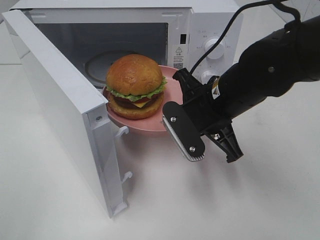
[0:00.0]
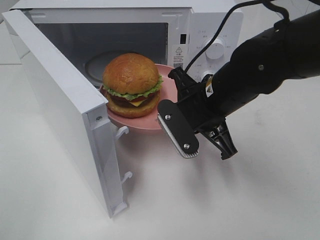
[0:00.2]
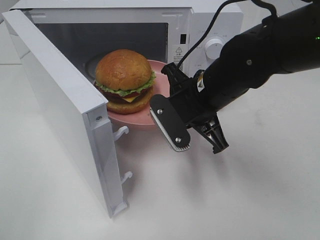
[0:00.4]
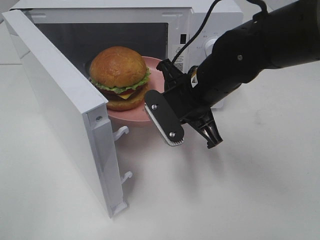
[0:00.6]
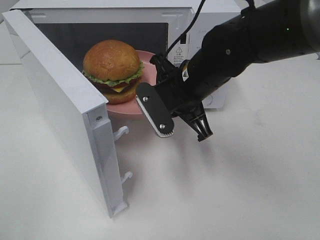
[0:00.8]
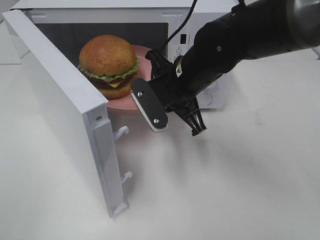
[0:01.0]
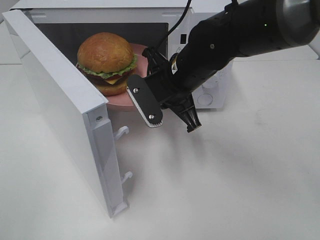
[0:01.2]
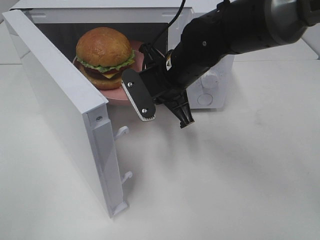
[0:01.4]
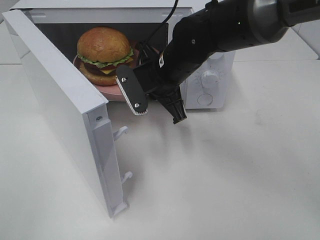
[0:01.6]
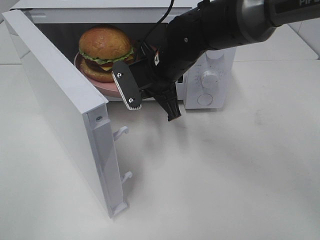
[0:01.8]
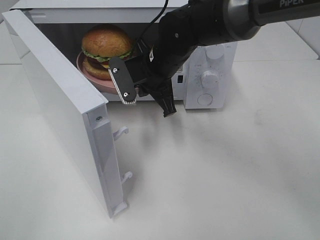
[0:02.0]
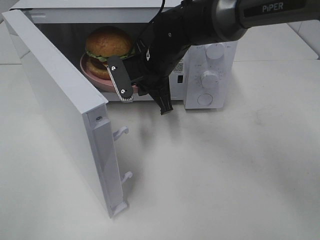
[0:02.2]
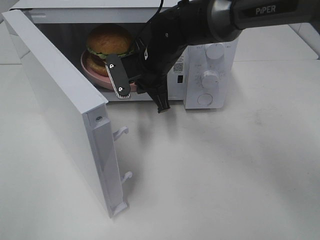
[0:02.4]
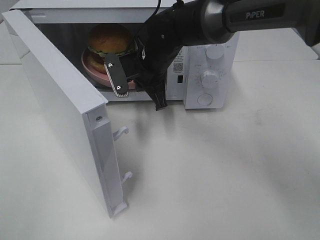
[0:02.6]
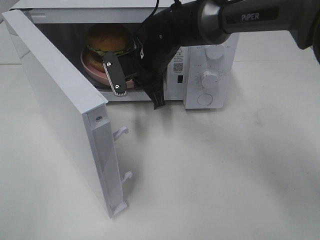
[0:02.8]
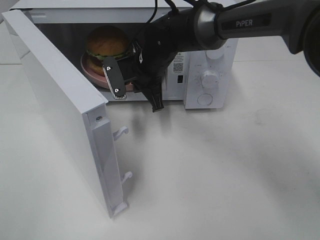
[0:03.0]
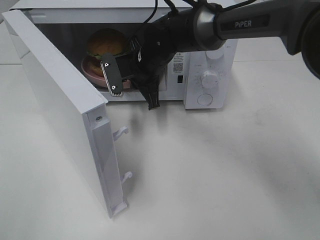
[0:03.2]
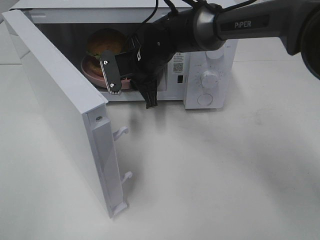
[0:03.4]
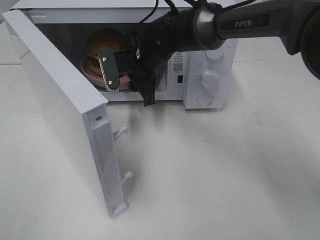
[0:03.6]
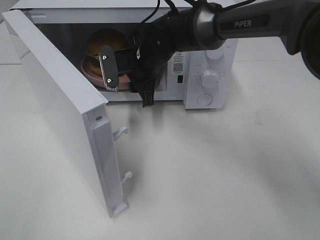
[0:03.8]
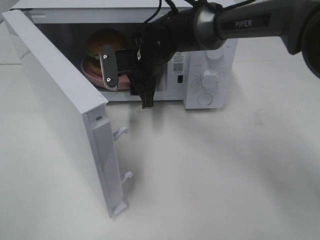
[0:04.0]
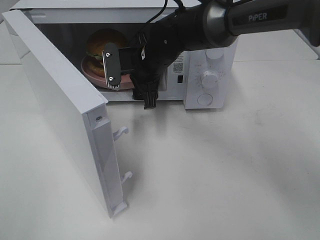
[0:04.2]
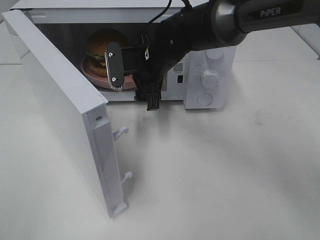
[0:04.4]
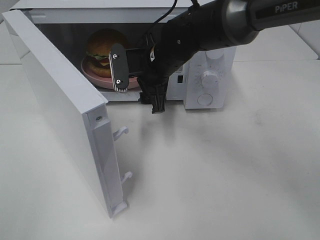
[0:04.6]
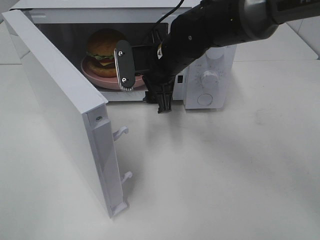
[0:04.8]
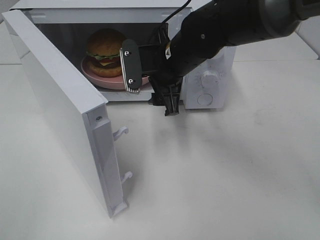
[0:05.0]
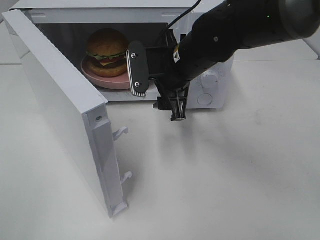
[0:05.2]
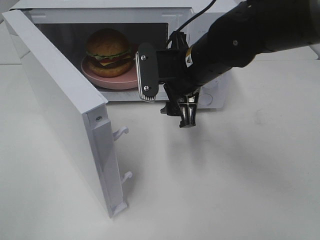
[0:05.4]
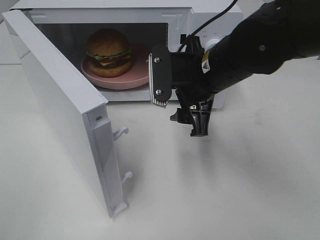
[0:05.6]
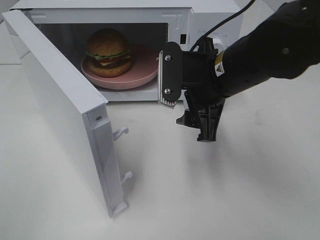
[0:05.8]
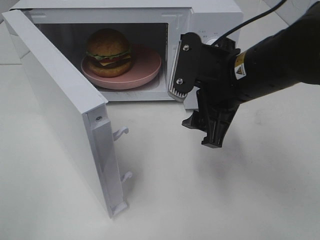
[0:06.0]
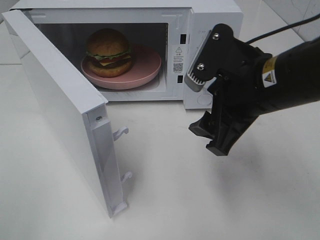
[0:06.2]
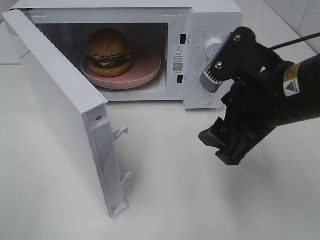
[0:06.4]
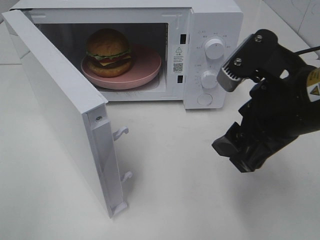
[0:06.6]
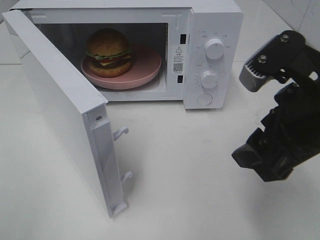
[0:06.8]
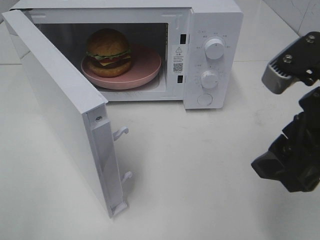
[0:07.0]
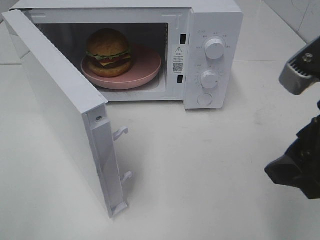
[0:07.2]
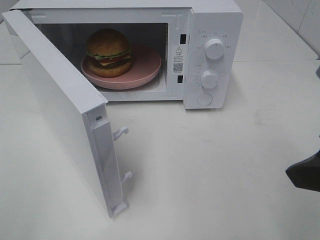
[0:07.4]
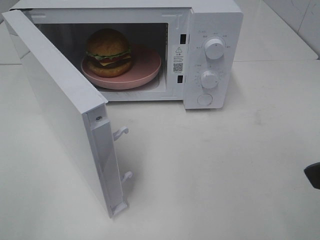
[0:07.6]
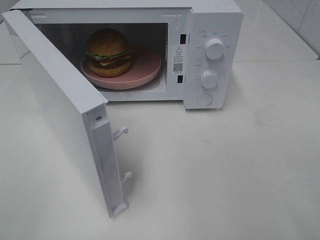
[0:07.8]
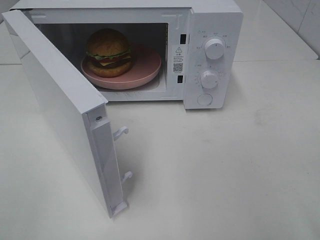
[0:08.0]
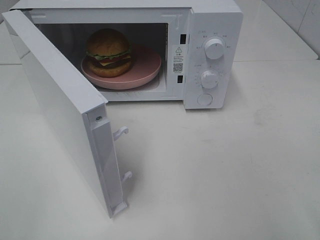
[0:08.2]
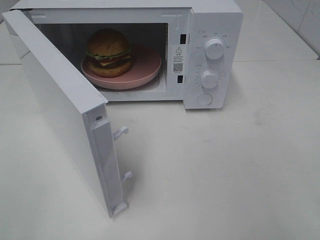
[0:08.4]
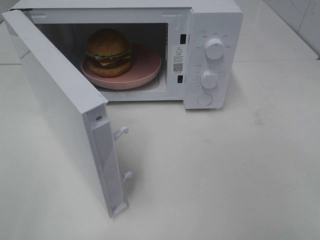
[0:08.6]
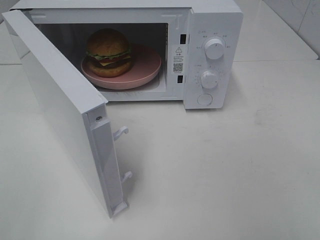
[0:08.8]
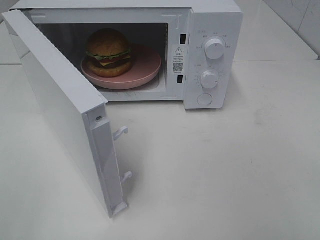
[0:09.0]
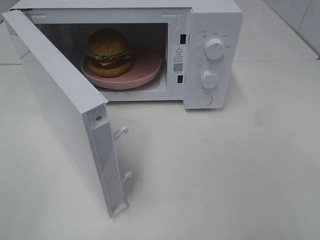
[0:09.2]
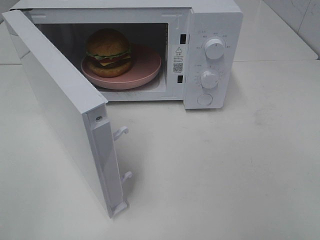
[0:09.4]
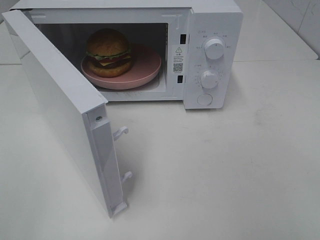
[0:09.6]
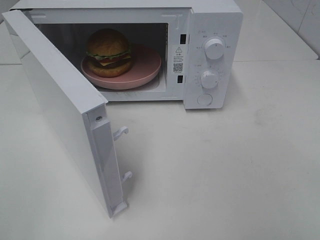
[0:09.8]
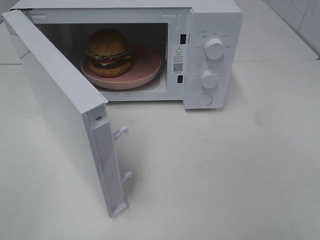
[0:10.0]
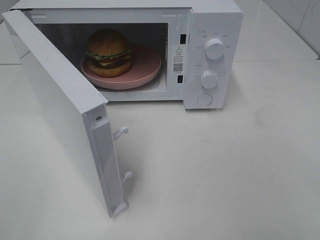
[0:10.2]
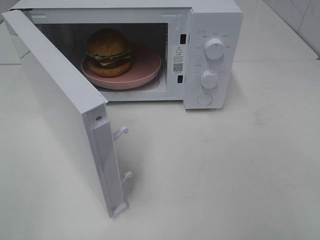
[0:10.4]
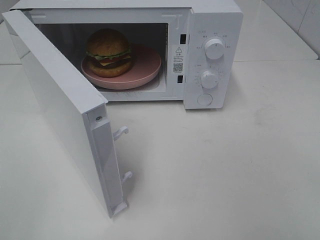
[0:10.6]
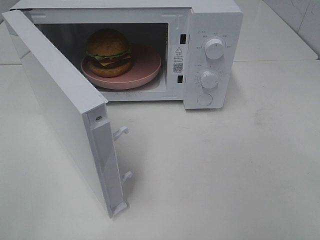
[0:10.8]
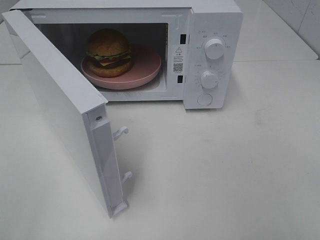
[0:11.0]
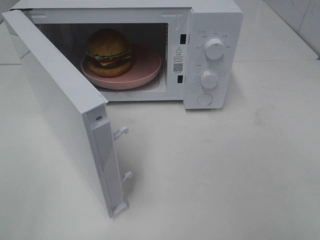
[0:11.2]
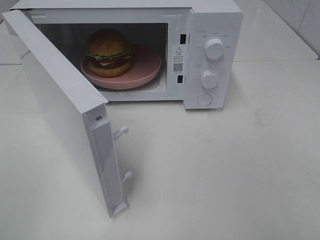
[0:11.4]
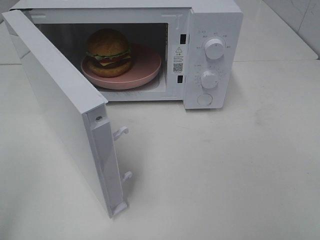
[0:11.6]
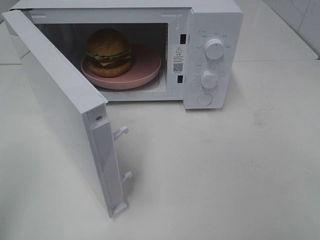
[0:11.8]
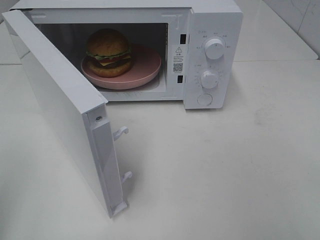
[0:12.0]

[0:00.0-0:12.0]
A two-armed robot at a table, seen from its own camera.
Task of the whole recording: Heat the burger.
Step, 0:00.0 to 0:03.6: Right hand: place the plate in the microwave.
0:00.0 to 0:01.6: The right gripper travels forward and to the left by roughly 10 cm.
0:01.6 to 0:03.0: The right gripper shifts approximately 5 cm forward.
0:03.0 to 0:04.4: The right gripper opens.
0:04.4 to 0:06.0: The right gripper moves backward, to the right and upward, some 20 cm.
0:06.0 to 0:07.6: The right gripper is displaced backward, to the right and upward by approximately 20 cm.
0:09.0 to 0:10.4: Neither gripper changes place.

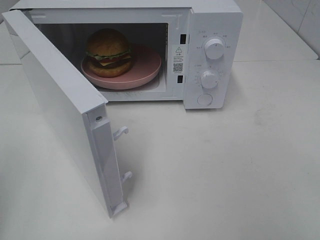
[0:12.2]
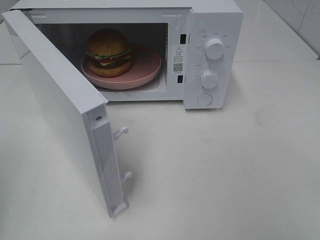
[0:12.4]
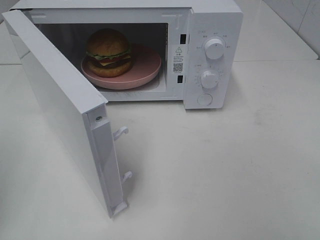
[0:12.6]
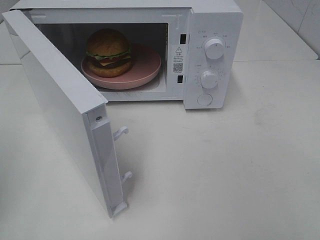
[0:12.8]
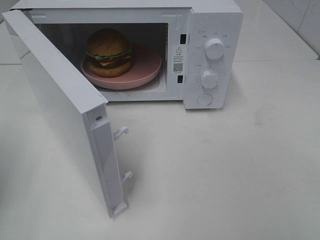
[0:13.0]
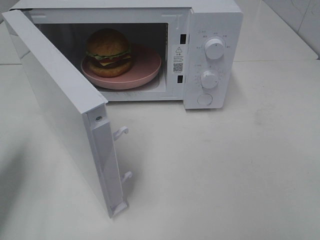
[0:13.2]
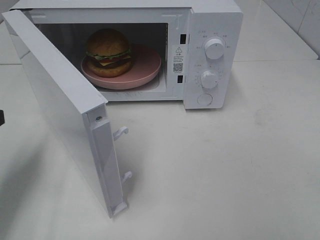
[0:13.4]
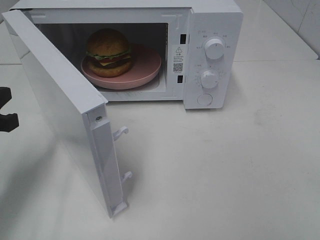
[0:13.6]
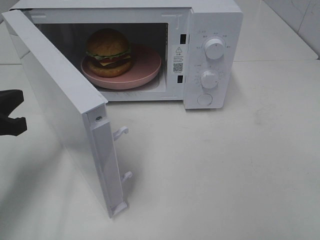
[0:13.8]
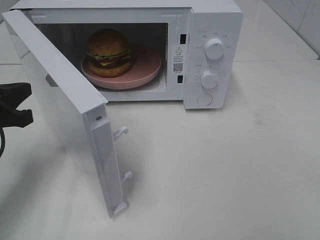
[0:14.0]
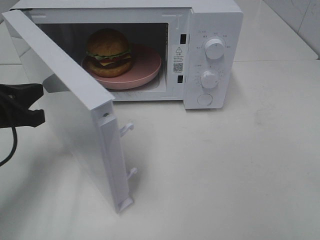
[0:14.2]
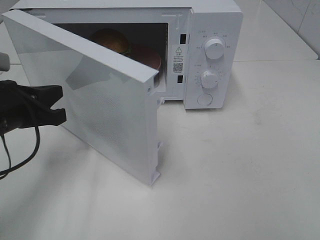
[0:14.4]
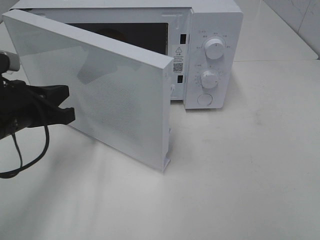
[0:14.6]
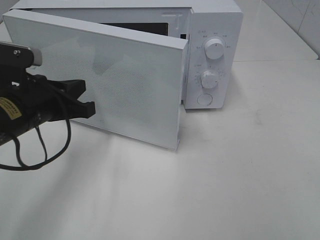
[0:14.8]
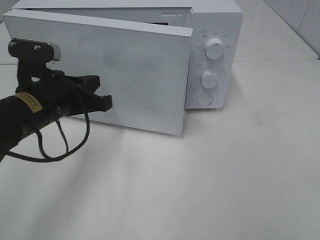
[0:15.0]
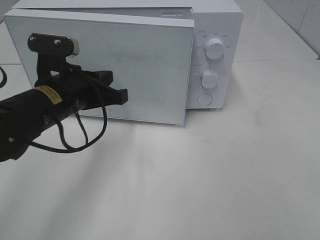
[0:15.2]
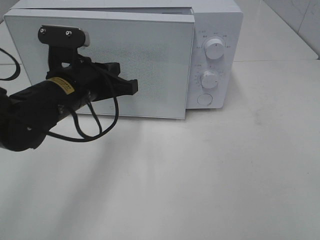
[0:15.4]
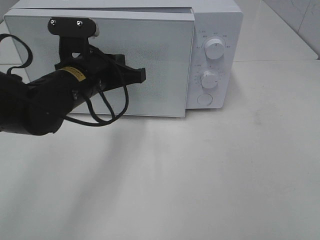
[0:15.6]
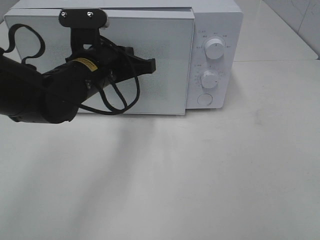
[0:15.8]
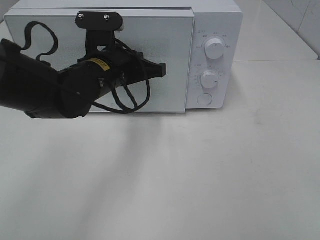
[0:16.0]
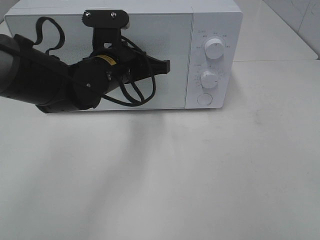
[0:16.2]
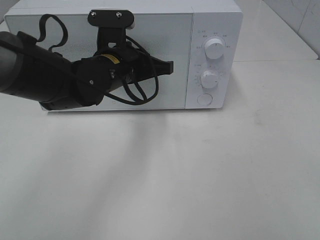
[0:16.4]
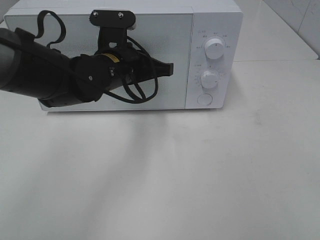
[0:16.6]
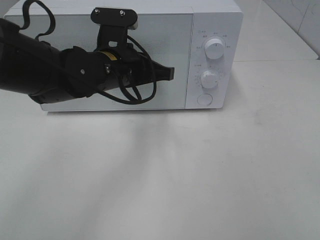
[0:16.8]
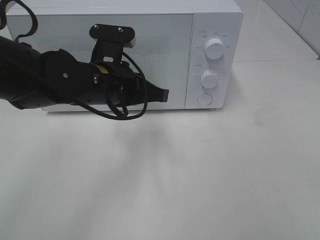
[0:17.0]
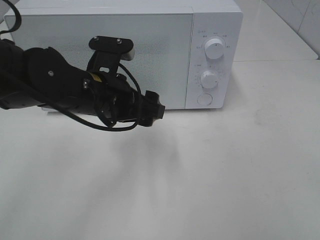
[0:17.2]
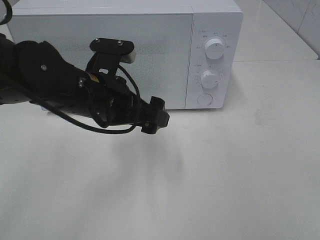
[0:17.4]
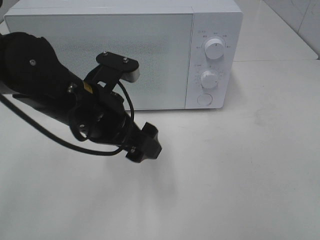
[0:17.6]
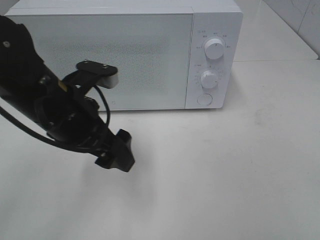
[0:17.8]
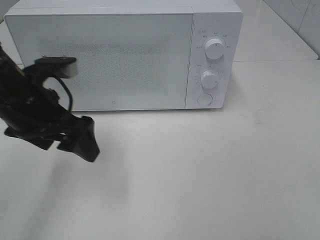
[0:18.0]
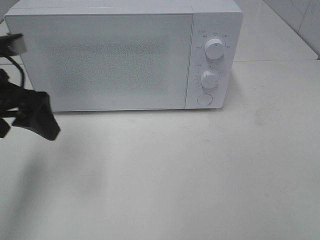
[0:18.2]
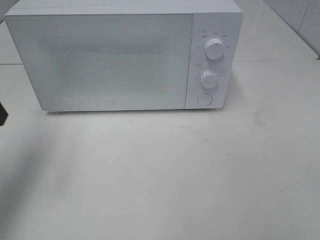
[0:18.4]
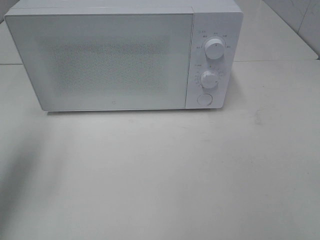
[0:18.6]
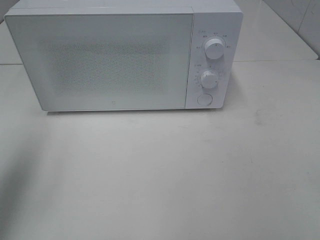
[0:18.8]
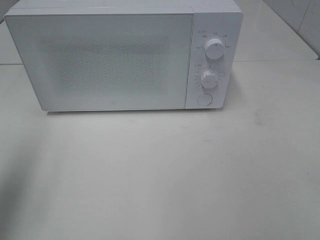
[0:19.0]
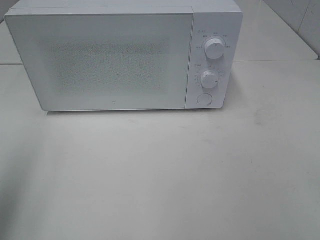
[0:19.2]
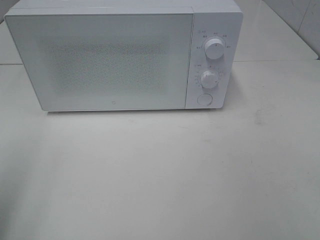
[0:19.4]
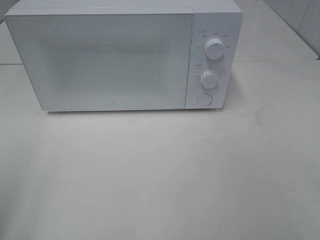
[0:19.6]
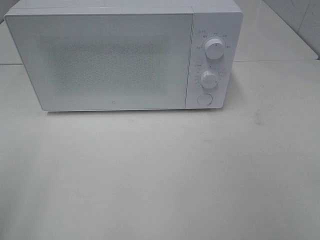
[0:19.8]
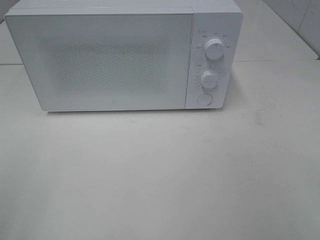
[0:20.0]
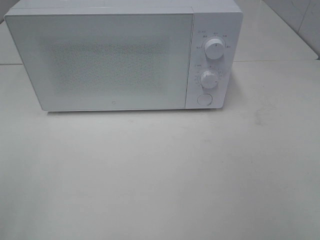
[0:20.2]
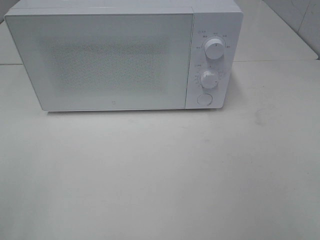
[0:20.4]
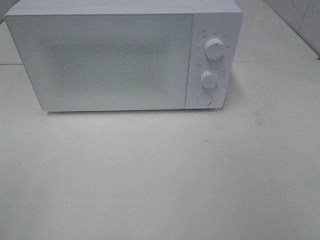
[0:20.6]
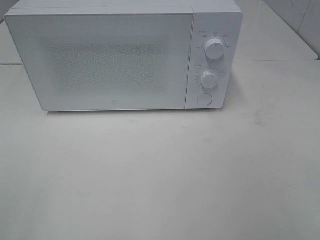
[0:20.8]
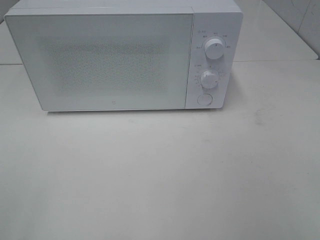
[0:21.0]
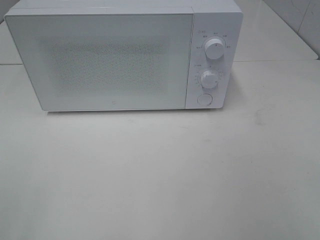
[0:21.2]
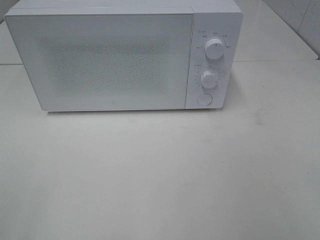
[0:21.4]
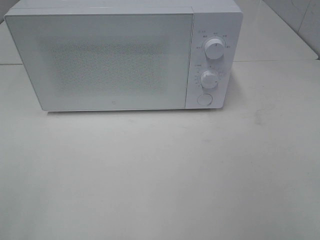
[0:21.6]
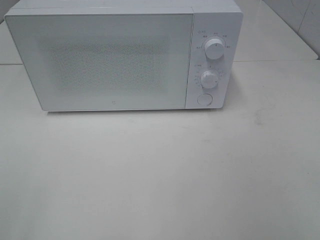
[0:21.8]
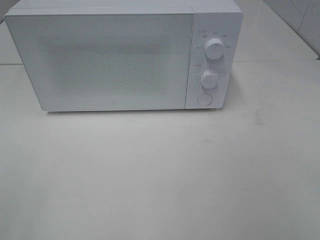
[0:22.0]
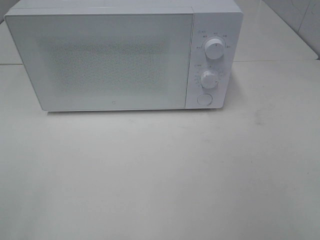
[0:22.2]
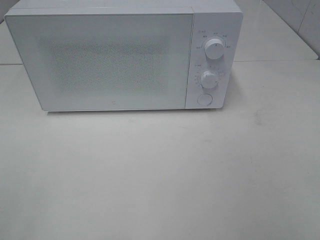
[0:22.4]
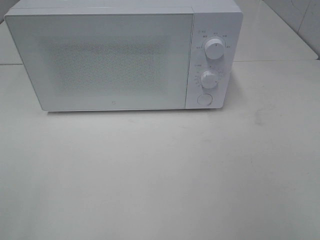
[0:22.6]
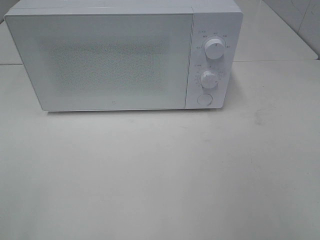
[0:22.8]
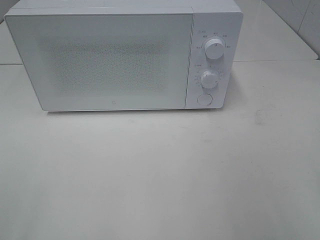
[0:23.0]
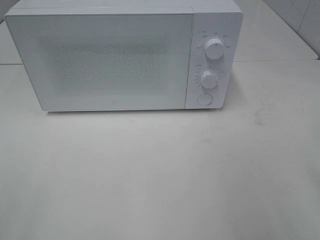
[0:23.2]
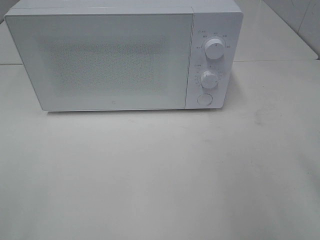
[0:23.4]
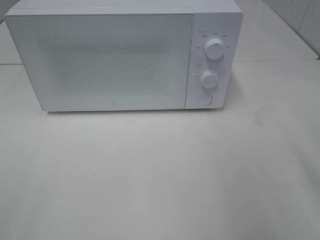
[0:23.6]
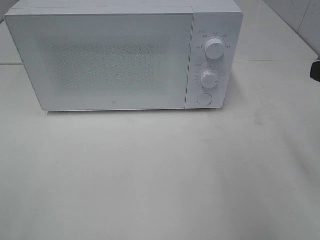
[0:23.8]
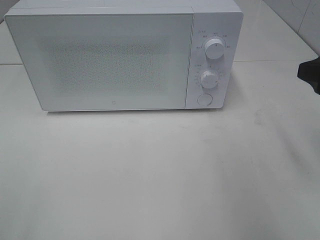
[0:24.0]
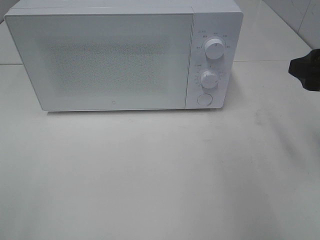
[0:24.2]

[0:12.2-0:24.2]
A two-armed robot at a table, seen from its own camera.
Task of the whole recording: Heat the burger.
Step, 0:12.2 to 0:16.8: Left hand: close the microwave door.
0:12.2 to 0:13.8: The left gripper travels forward, downward and to the right by roughly 15 cm.
0:13.8 to 0:15.2: The left gripper goes some 15 cm to the right and forward.
0:15.2 to 0:16.6: The left gripper is displaced to the right and forward by roughly 10 cm.
0:16.6 to 0:18.2: The left gripper is displaced to the left and backward by about 20 cm, and opens up.
0:18.2 to 0:19.8: The left gripper heads backward and to the left, covering roughly 20 cm.
0:22.6 to 0:24.2: The right gripper shifts some 20 cm forward.
